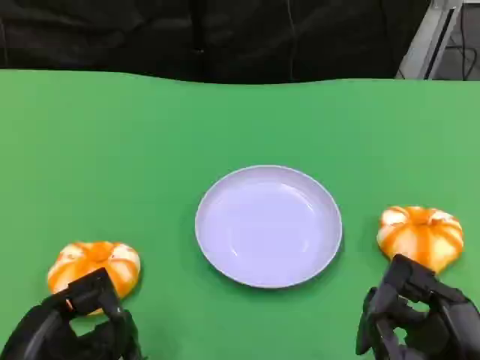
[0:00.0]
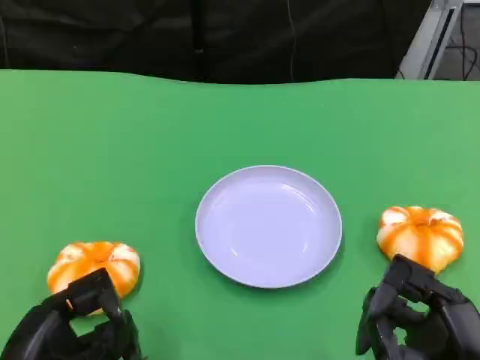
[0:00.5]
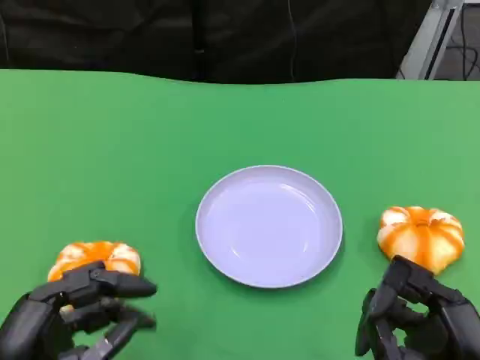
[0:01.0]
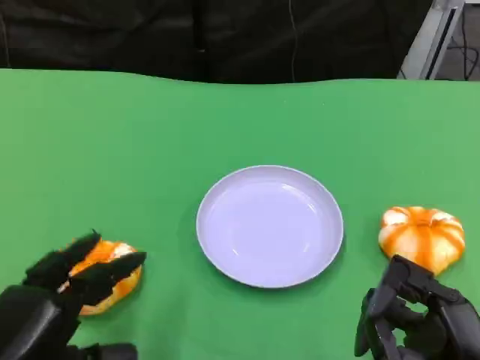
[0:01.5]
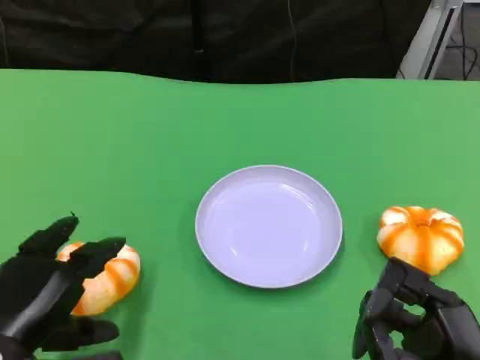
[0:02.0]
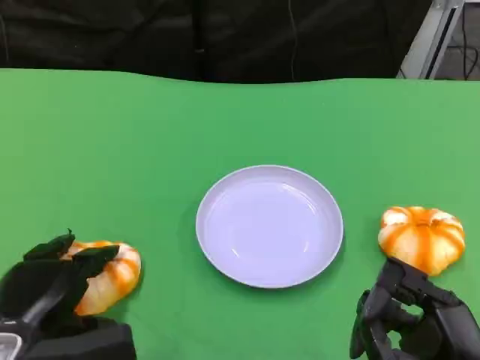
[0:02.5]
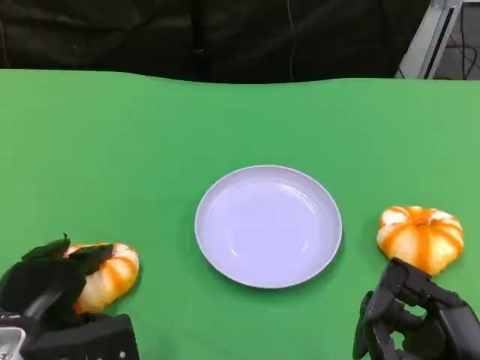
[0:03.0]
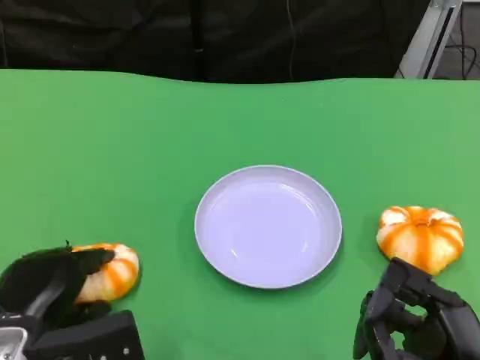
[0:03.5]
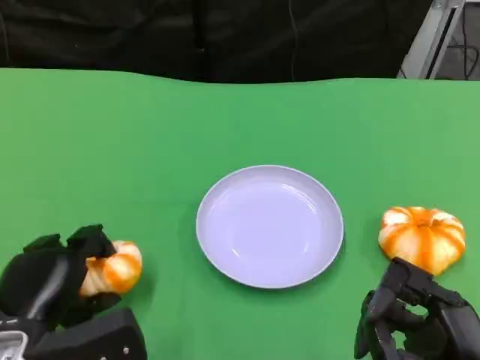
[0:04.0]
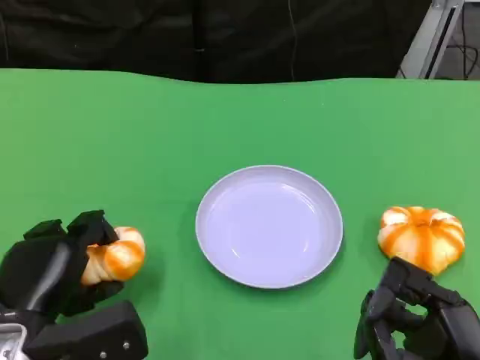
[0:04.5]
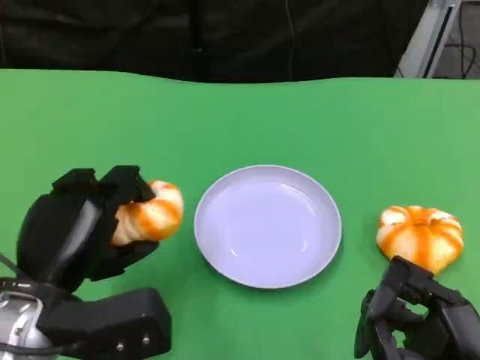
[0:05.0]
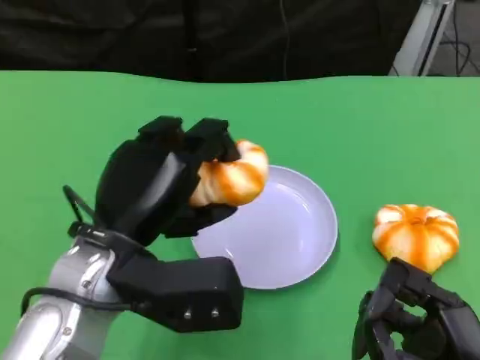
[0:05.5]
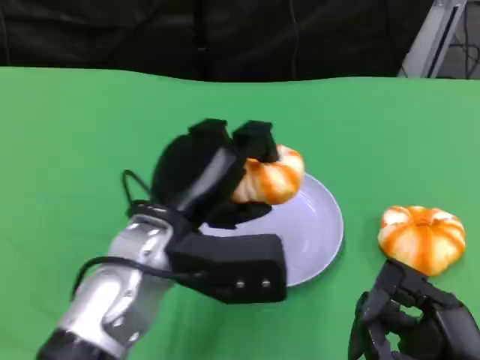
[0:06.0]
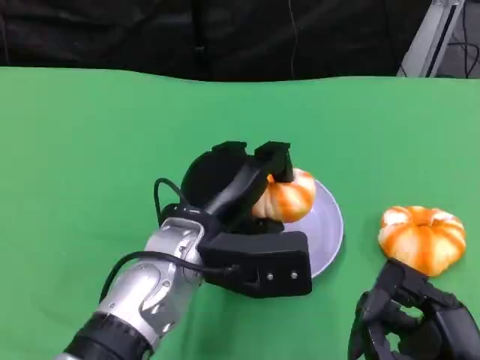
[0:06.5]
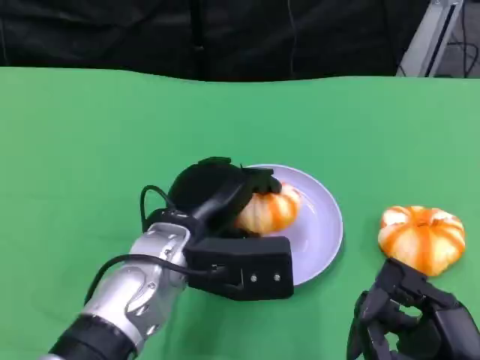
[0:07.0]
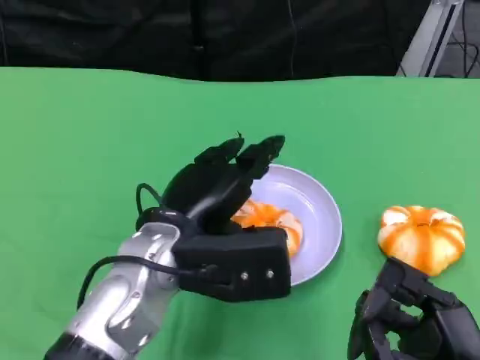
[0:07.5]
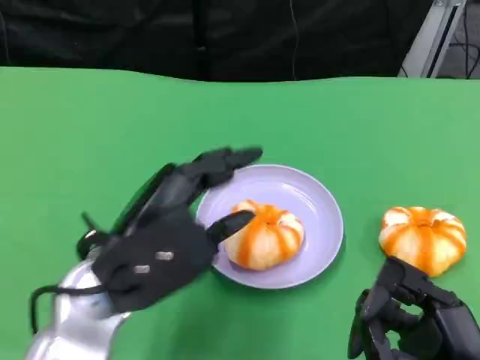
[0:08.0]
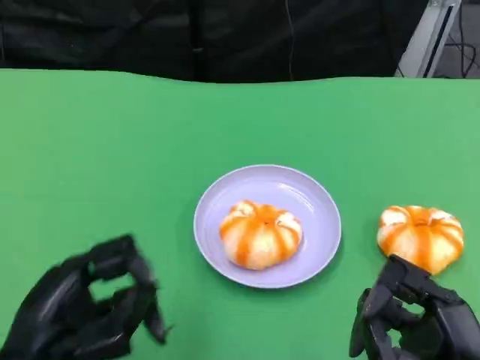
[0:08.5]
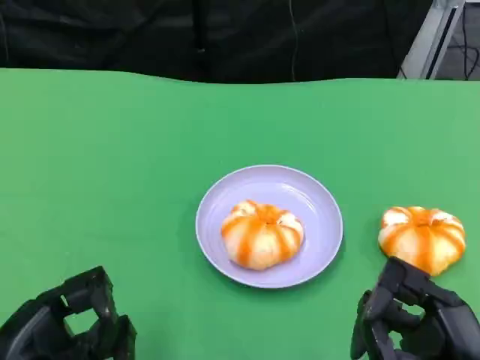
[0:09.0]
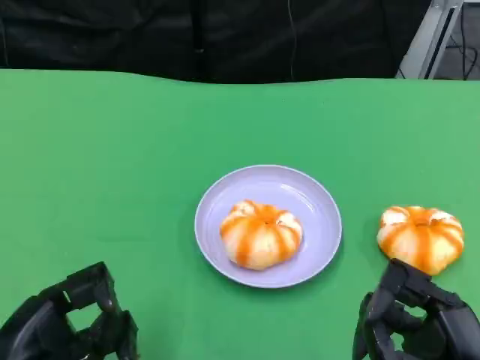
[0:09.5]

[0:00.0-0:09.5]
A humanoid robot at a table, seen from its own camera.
Task of the whole recording: Grasp the bread from the table and place it into the plate.
0:00.0 to 0:02.0: The left hand moves forward, approximately 5 cm.
0:02.0 to 0:04.0: The hands stay close to where they were, moving slightly.
0:04.0 to 0:05.5: The left hand is displaced upward and to the right by some 15 cm.
0:07.5 to 0:09.5: The left hand heads to the left and backward, covering some 20 cm.

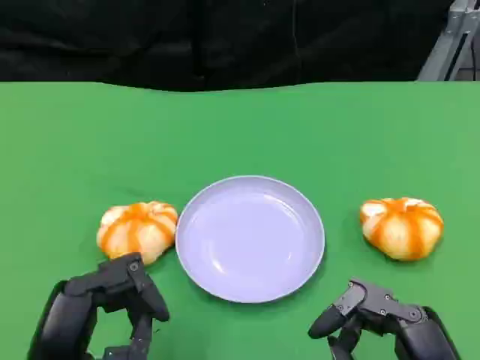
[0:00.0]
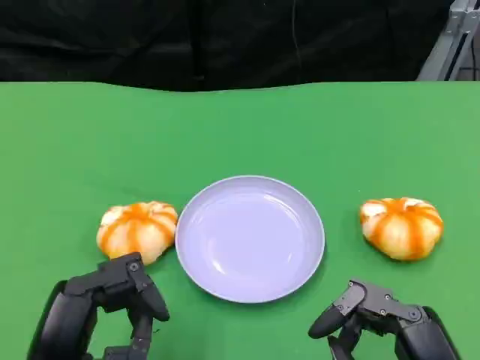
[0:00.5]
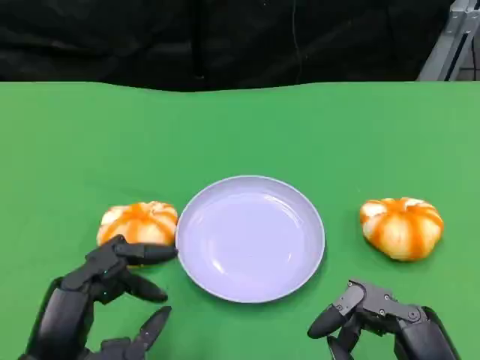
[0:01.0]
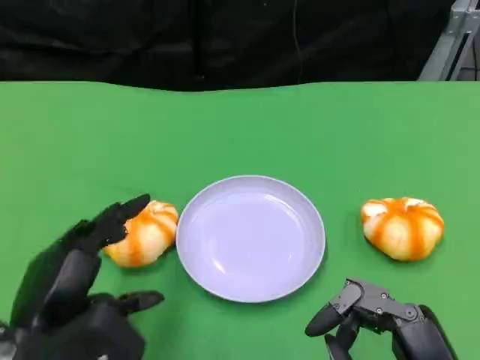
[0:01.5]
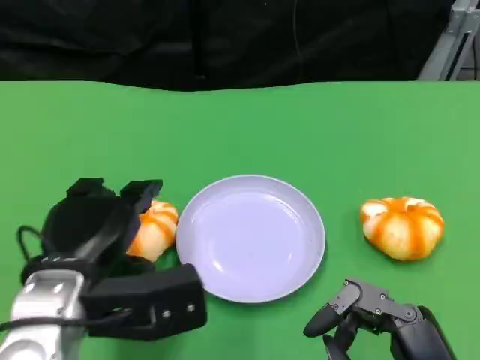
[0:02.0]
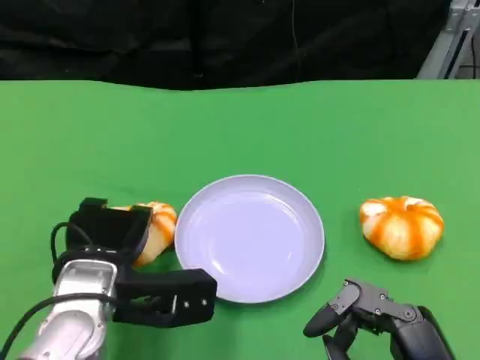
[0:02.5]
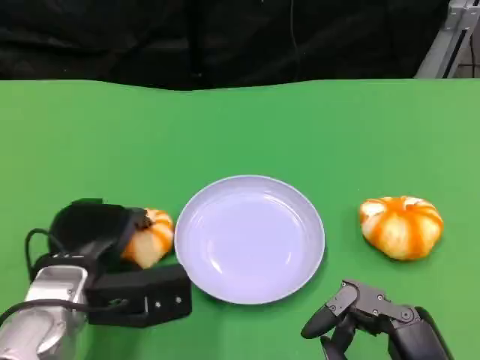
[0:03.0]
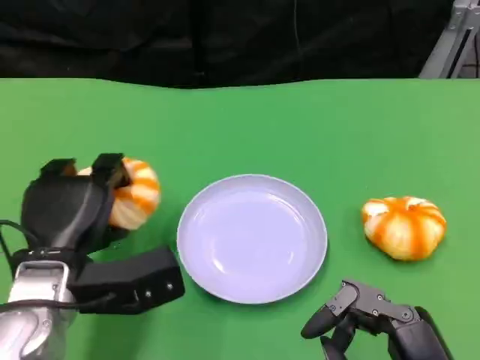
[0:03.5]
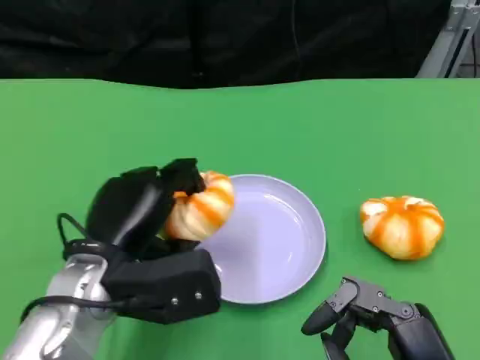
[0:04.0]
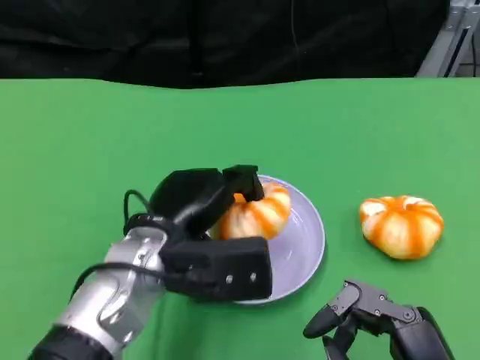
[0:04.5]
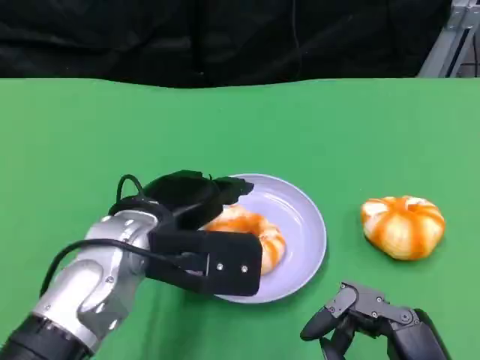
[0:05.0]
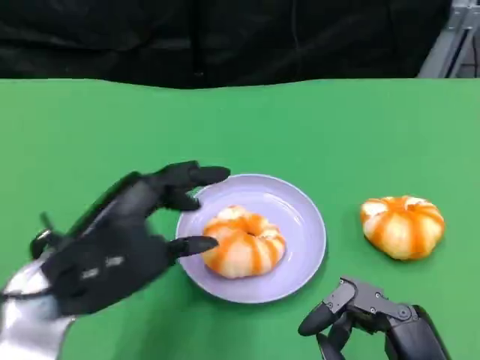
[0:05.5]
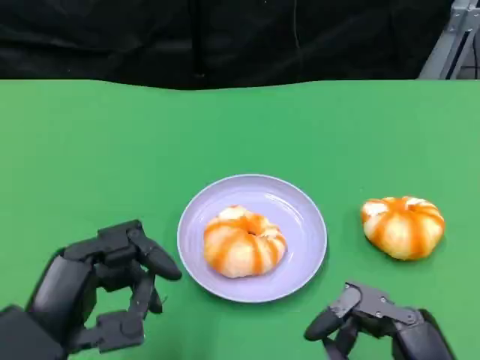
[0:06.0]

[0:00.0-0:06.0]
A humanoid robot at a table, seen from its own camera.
Task of the whole recording: Grasp the bread from the table and place it into the plate.
0:00.0 to 0:02.0: The left hand is displaced forward by approximately 10 cm.
0:04.0 to 0:06.0: The left hand moves backward and to the left, approximately 10 cm.

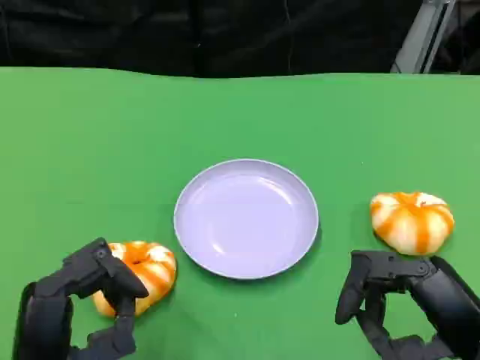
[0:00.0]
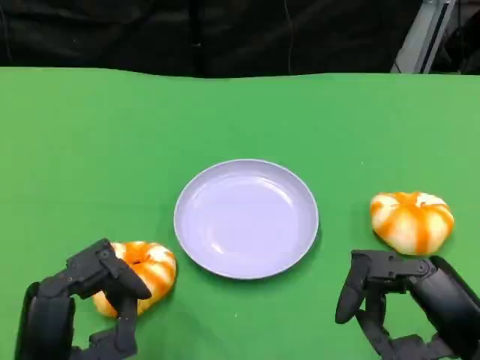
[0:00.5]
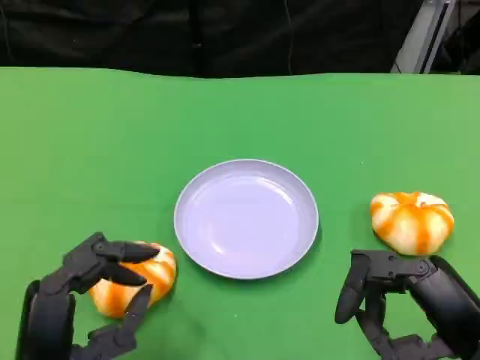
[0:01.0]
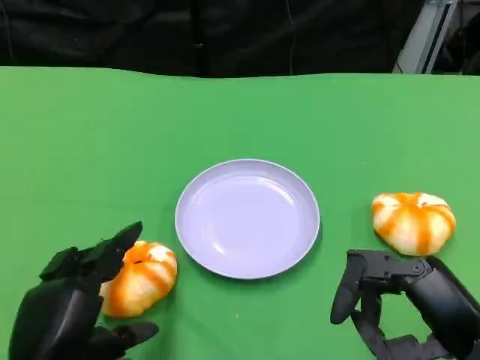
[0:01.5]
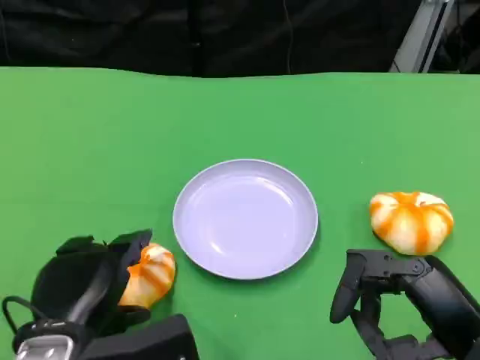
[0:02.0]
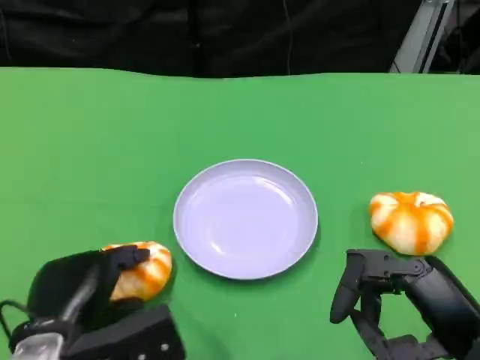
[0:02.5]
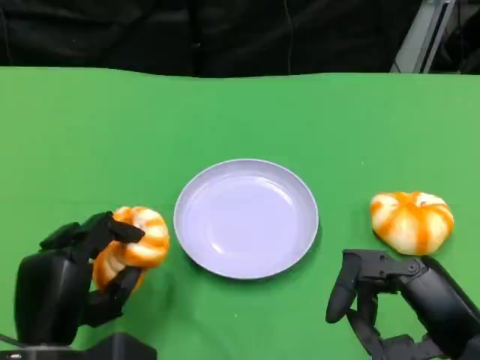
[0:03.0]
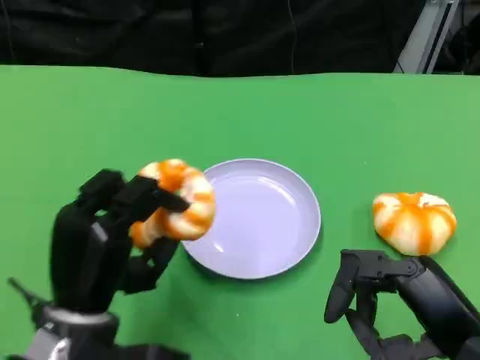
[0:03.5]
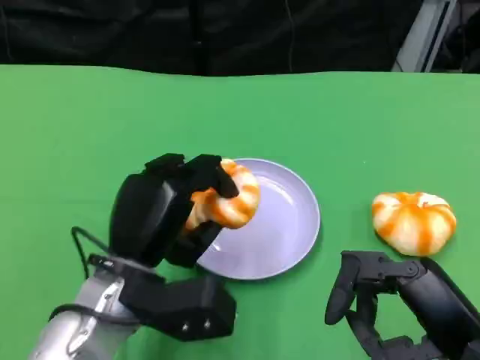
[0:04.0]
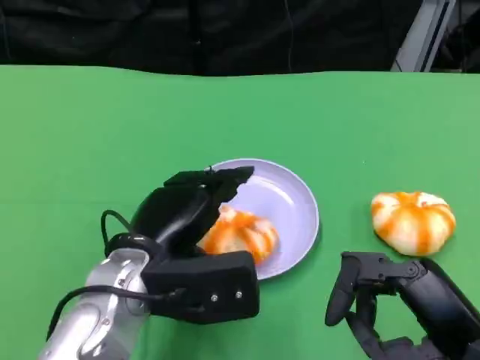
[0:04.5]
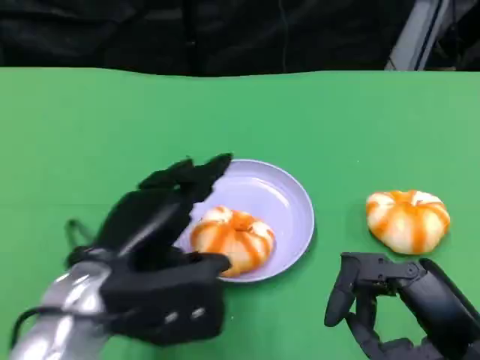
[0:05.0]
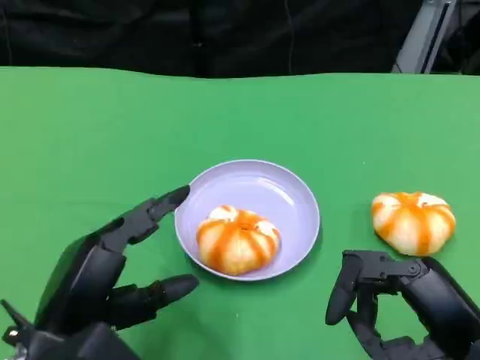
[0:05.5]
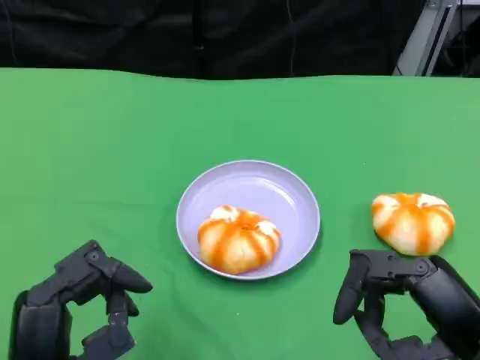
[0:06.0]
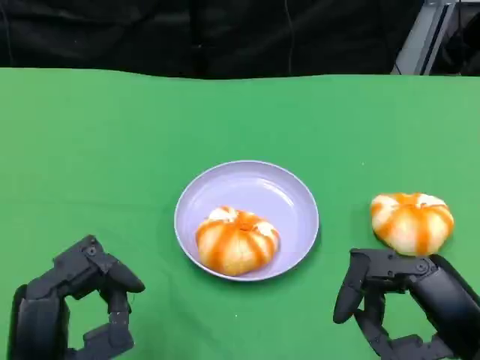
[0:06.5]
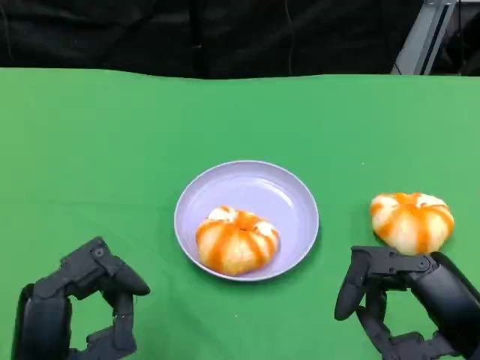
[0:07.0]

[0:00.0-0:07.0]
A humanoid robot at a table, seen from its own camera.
Task of the whole recording: Grasp the bread from the table and place it into the plate.
0:00.0 to 0:02.0: The left hand ends up some 5 cm from where it was.
0:05.0 to 0:07.0: The left hand goes roughly 10 cm backward.

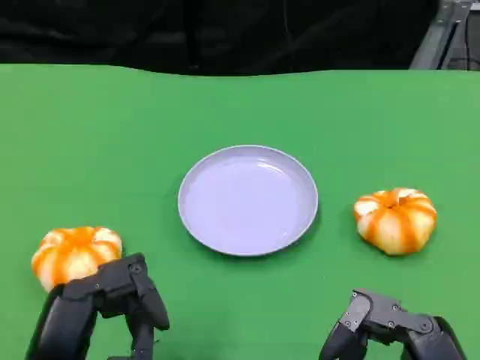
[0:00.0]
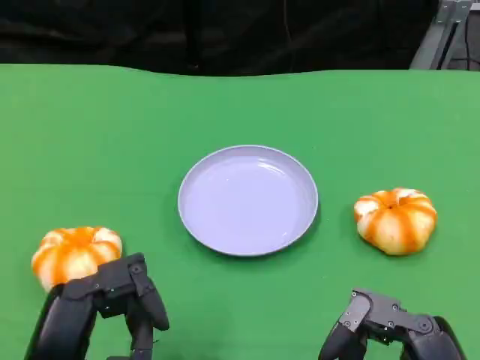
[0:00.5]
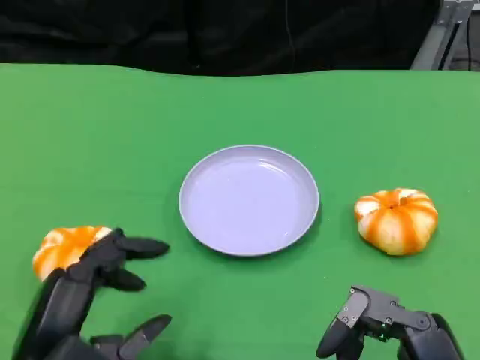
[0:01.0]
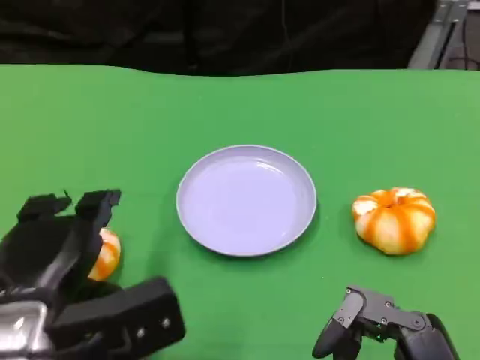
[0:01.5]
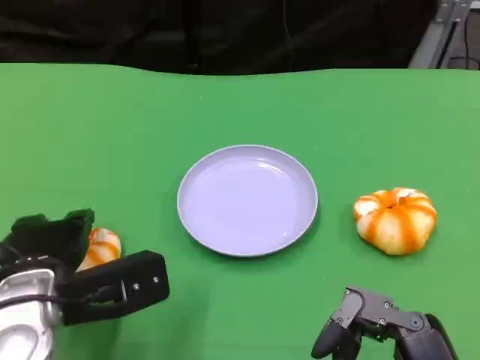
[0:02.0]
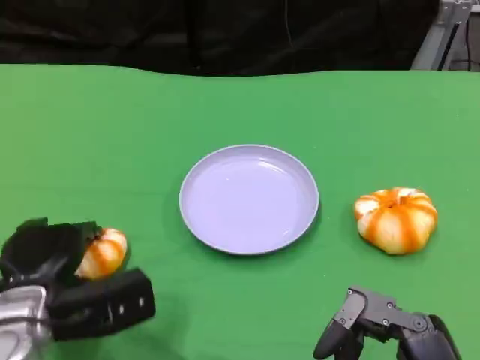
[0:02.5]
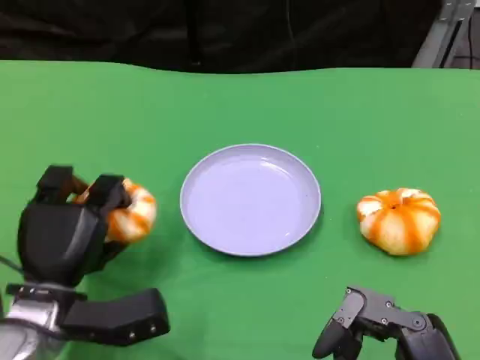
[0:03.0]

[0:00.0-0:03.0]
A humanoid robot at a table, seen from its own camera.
Task of the whole recording: Grasp the bread from the table and place it into the plate.
0:00.0 to 0:01.5: The left hand travels forward by some 5 cm.
0:01.5 to 0:03.0: The left hand shifts roughly 10 cm downward and forward.
